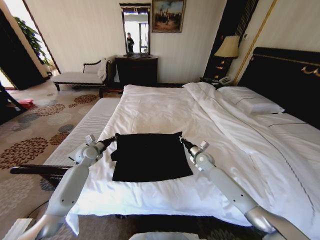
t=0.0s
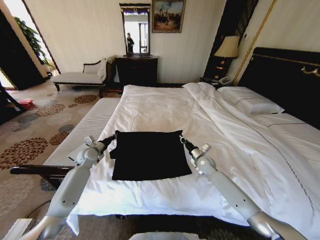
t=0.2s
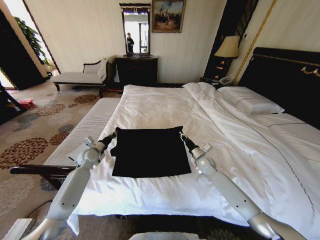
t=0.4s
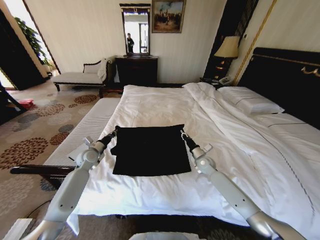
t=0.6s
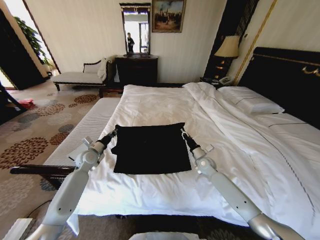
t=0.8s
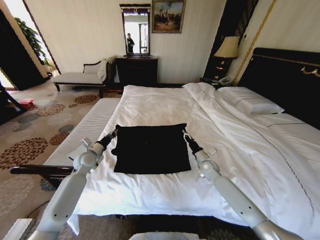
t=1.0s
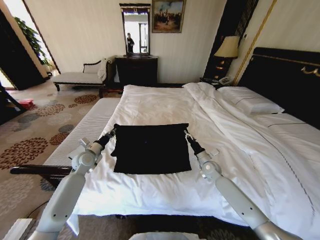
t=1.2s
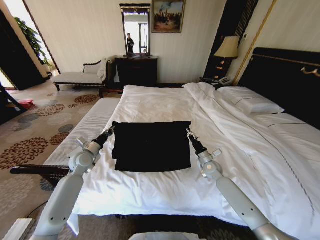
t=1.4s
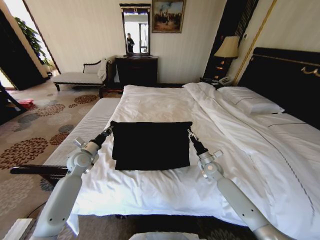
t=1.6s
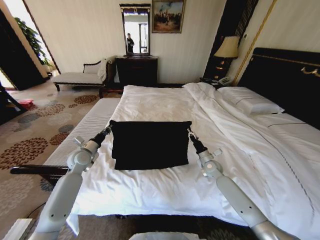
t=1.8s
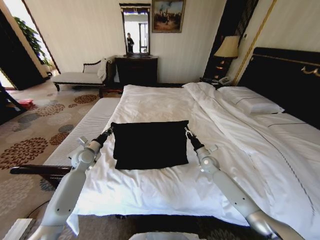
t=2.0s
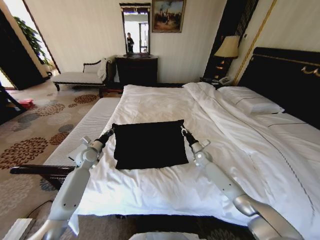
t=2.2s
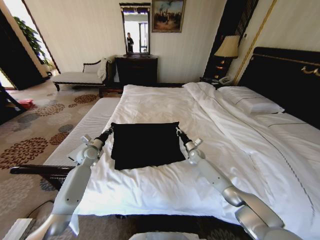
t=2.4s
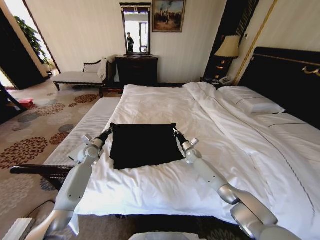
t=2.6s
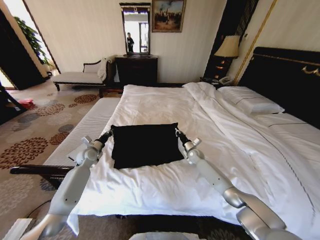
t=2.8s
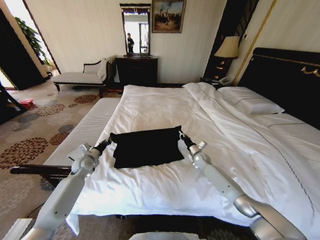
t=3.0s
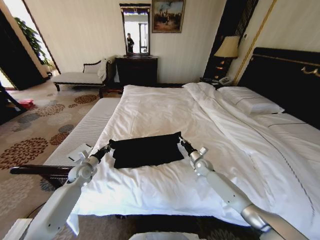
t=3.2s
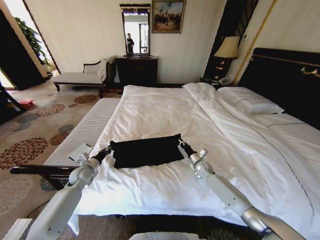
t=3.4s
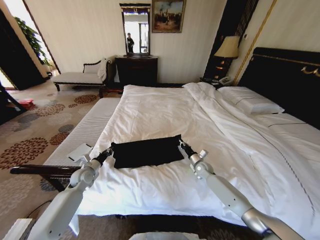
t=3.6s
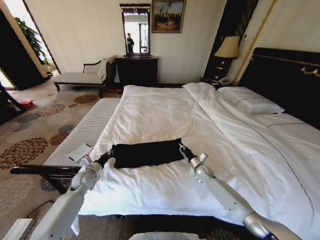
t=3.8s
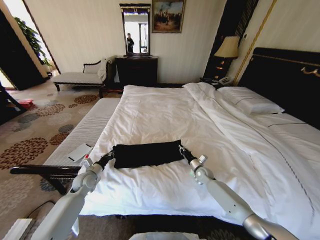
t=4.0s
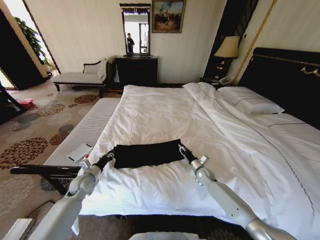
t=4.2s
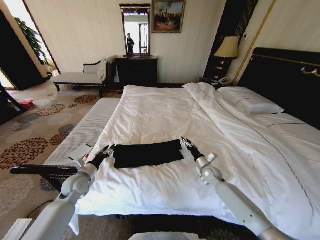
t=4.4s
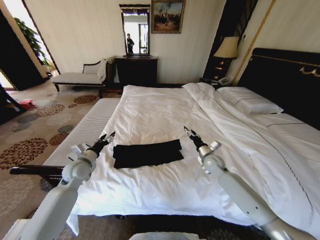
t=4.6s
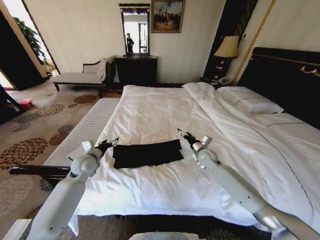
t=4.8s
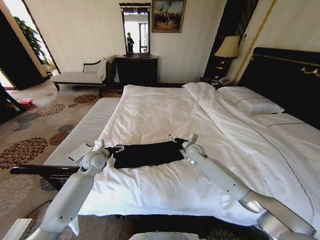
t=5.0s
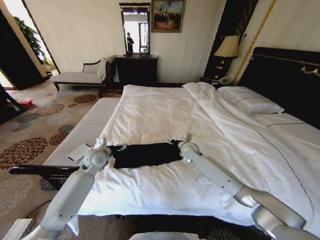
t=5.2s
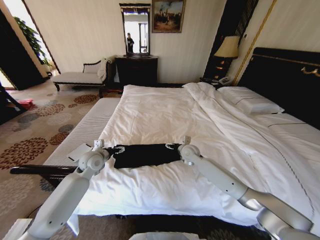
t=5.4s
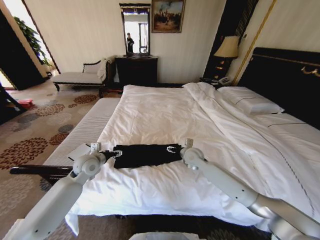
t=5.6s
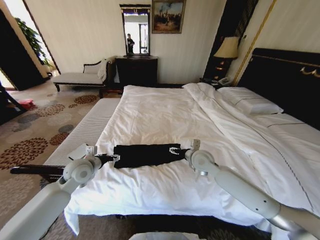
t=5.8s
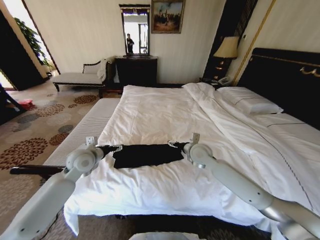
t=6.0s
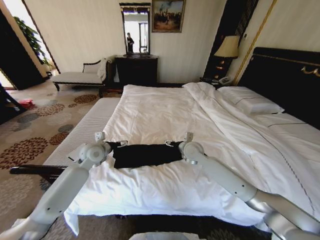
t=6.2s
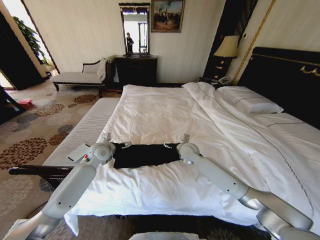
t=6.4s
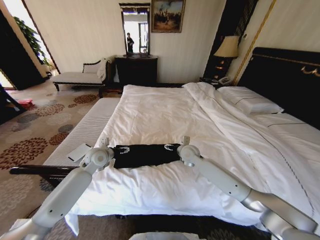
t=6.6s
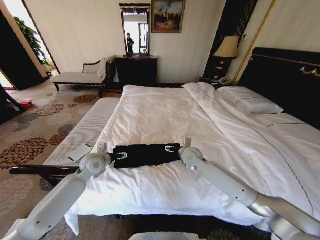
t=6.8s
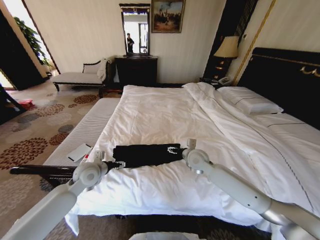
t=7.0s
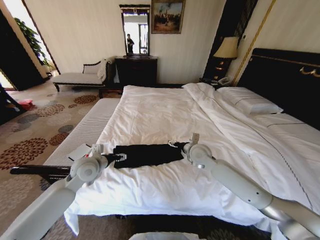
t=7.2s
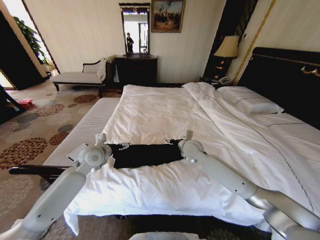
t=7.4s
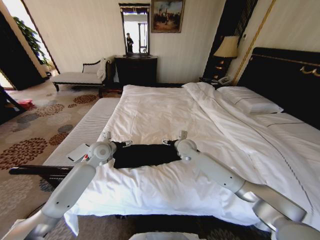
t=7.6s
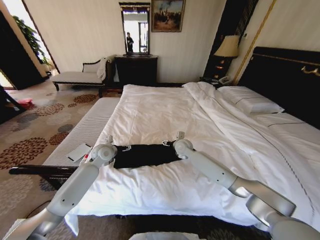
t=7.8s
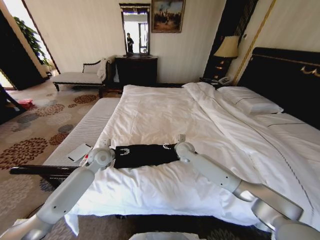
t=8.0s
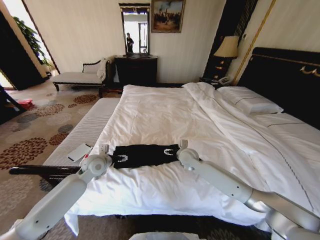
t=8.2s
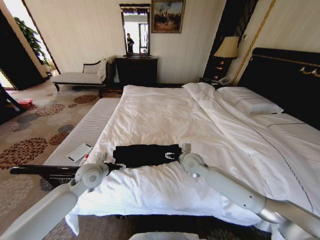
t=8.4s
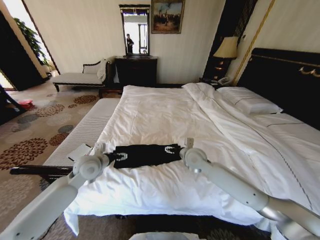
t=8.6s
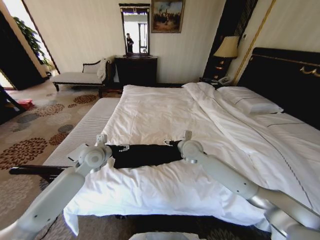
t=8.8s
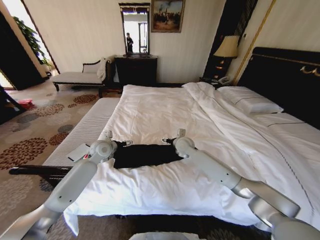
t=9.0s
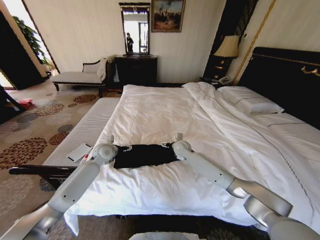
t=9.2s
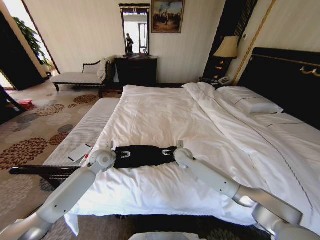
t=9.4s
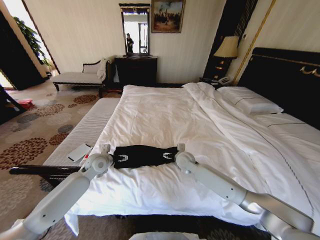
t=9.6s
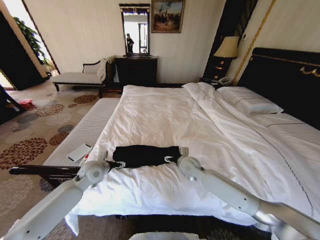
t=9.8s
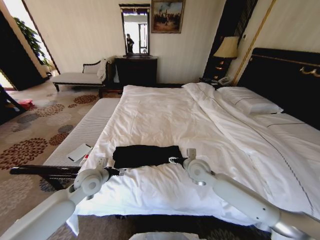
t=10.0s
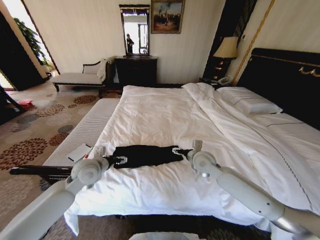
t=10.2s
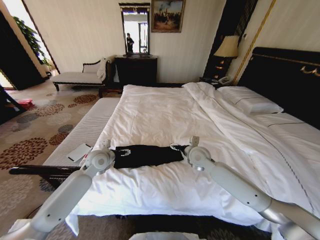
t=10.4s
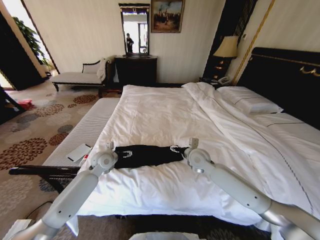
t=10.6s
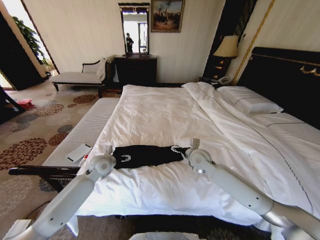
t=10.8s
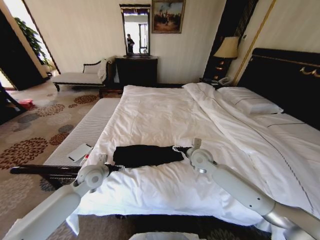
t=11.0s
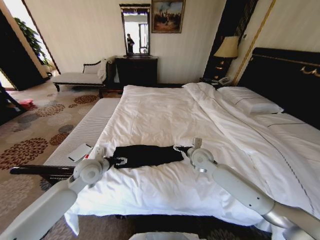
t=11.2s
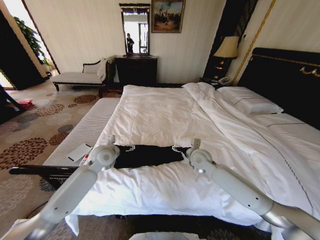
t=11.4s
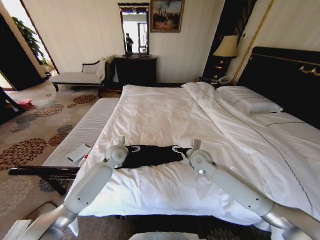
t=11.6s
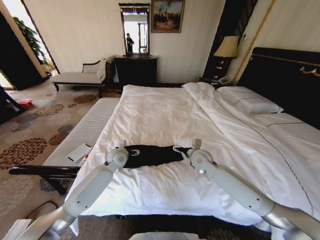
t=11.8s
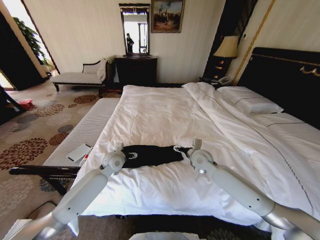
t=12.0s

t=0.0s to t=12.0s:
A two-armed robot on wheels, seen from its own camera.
Task of the whole recording: Fold the clothes on the bed.
t=0.0s to t=1.6s: The left gripper heads backward, covering some 5 cm. The right gripper changes place by some 5 cm.
t=1.6s to t=3.0s: The left gripper travels downward by roughly 5 cm; the right gripper shifts some 10 cm forward.
t=3.0s to t=4.4s: The two grippers go about 10 cm backward. The left gripper opens its fingers, while the right gripper opens its fingers.
t=4.4s to t=6.0s: The right gripper shifts about 20 cm upward and to the left, and opens up. The left gripper shifts approximately 15 cm upward and to the right, and opens up.
t=6.0s to t=7.6s: The left gripper goes forward and backward, approximately 10 cm each way, reversing 2 times; the right gripper swings forward and backward, approximately 10 cm each way, with 2 reversals.
t=7.6s to t=9.0s: The right gripper goes backward and returns, roughly 10 cm each way, while the left gripper travels backward and back again, some 10 cm each way.
t=9.0s to t=10.4s: The right gripper travels backward by about 10 cm. The left gripper reaches roughly 15 cm backward, then returns.
t=10.4s to t=12.0s: The left gripper travels to the right by about 5 cm, and reaches some 5 cm backward, then returns.

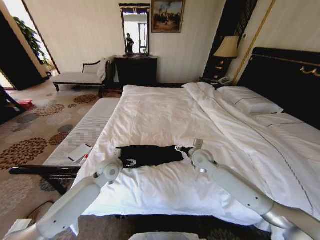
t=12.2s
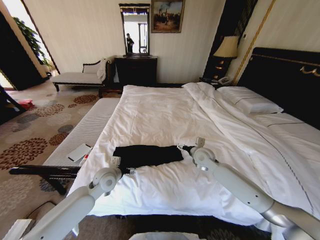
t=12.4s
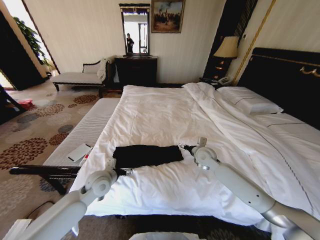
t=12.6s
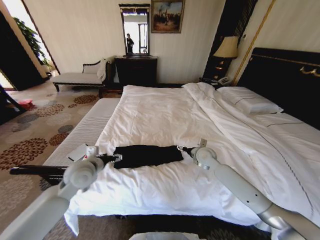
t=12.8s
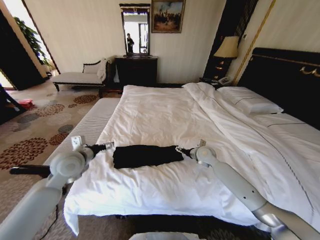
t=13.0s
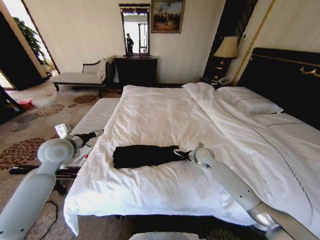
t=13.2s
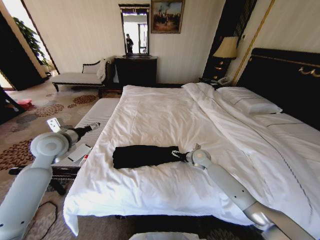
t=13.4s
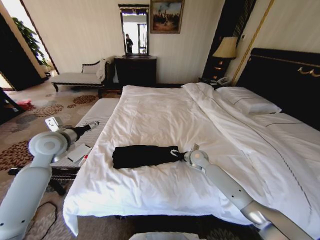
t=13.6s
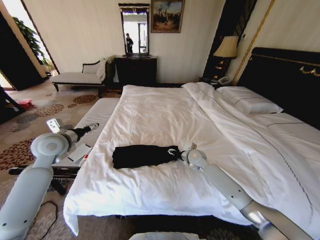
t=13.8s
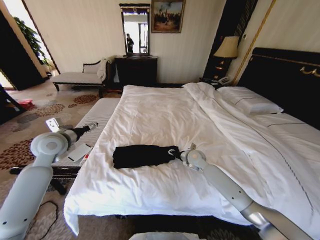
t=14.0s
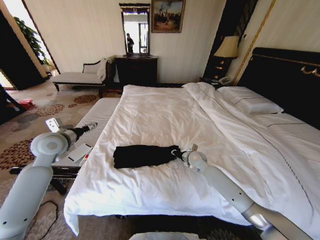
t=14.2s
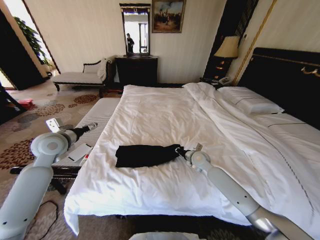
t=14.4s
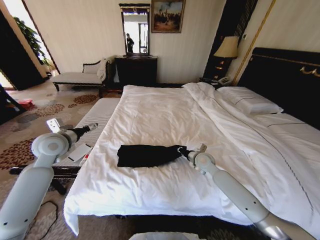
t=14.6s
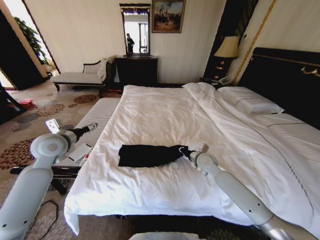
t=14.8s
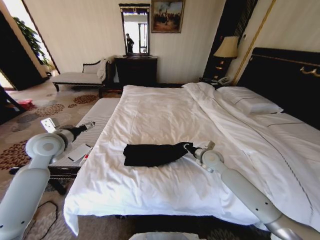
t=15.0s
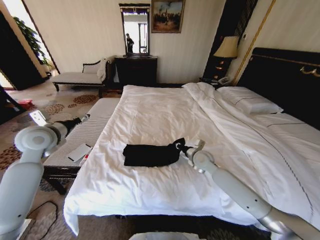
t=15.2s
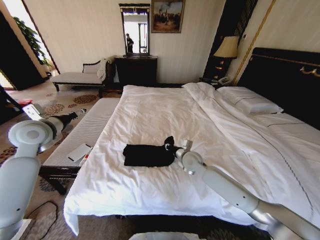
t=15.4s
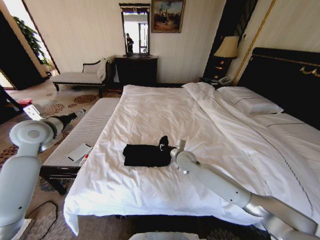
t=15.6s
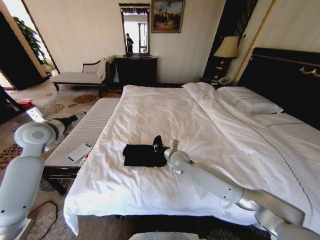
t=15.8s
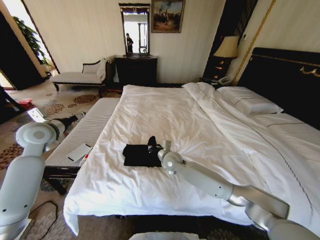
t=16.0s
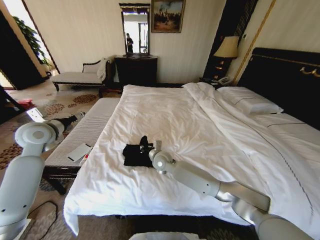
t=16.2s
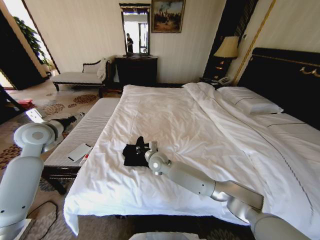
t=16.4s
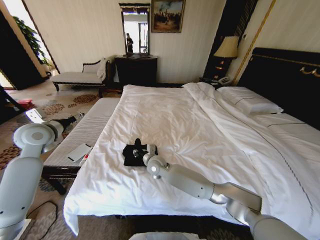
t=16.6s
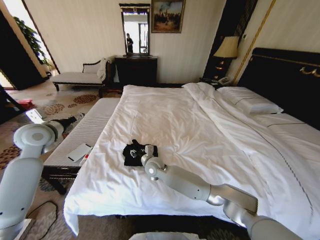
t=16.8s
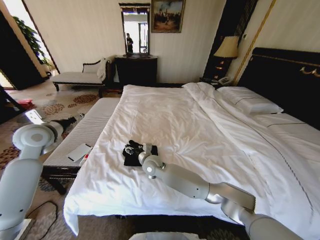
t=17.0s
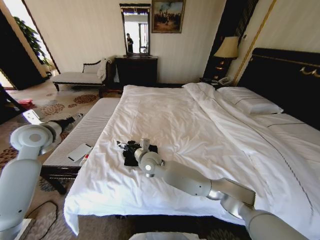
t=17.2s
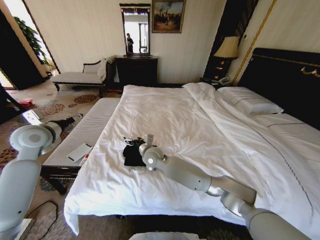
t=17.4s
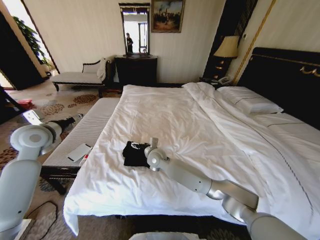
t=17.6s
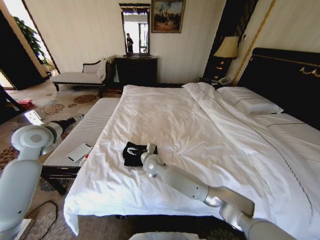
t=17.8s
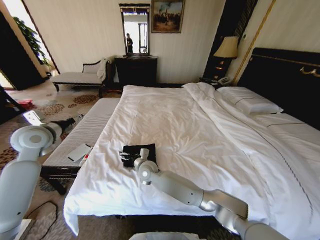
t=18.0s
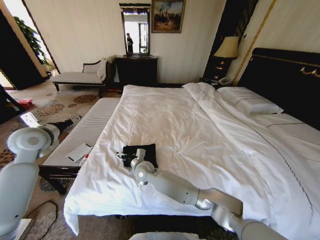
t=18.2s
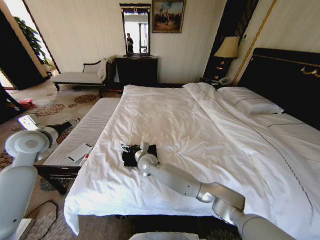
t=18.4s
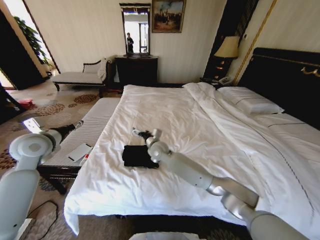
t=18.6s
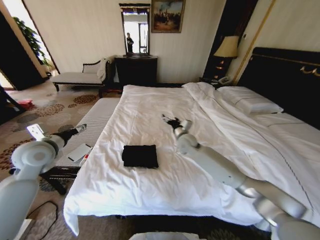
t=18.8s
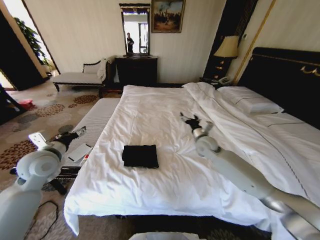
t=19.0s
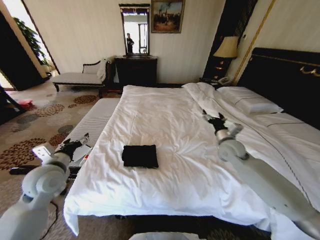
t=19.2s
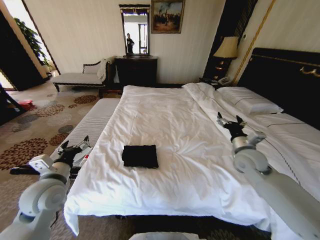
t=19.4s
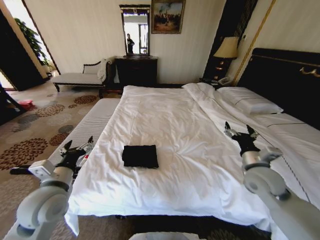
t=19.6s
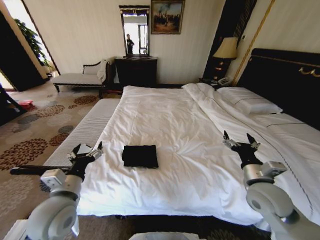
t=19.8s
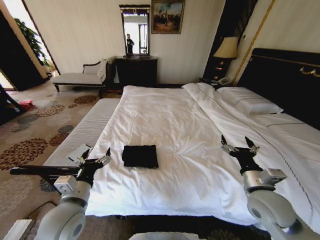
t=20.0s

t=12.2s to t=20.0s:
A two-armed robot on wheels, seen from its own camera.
Task of the whole recording: Fold the clothes on the bed.
t=12.2s to t=13.8s: The right gripper moves downward, roughly 5 cm. Meanwhile the left gripper heads upward and to the left, covering roughly 25 cm.
t=13.8s to t=15.4s: The right gripper ends up roughly 10 cm from where it was, and closes, while the left gripper ends up some 5 cm from where it was.
t=15.4s to t=16.8s: The right gripper heads to the left, covering roughly 20 cm.
t=16.8s to t=18.4s: The right gripper opens its fingers.
t=18.4s to t=20.0s: The right gripper moves to the right and backward, approximately 40 cm, while the left gripper goes approximately 25 cm backward, to the right and downward.

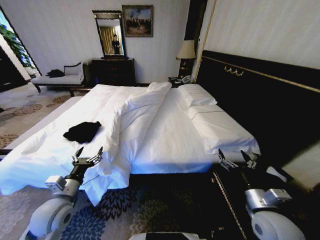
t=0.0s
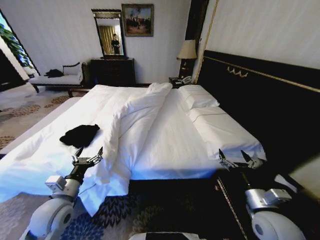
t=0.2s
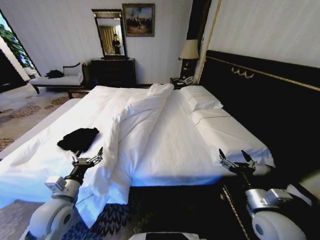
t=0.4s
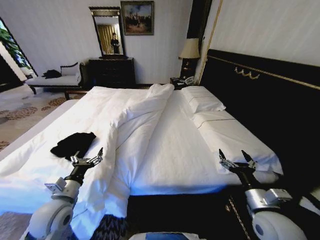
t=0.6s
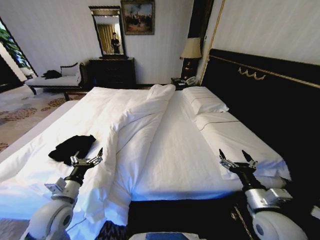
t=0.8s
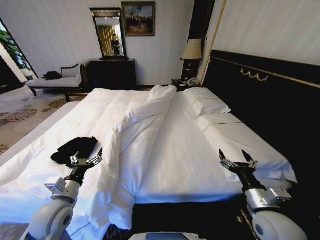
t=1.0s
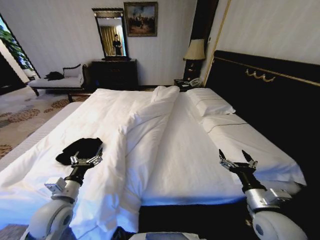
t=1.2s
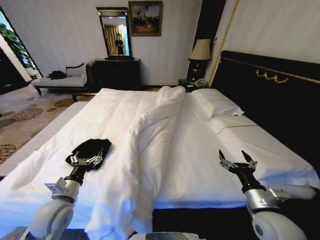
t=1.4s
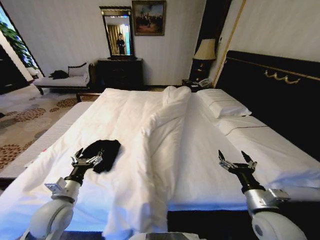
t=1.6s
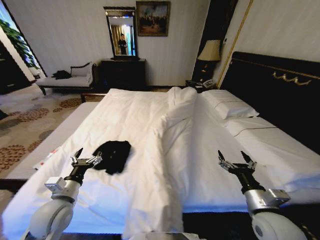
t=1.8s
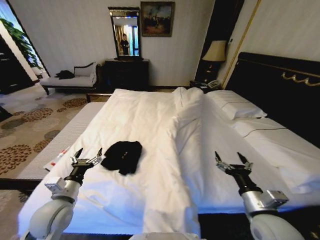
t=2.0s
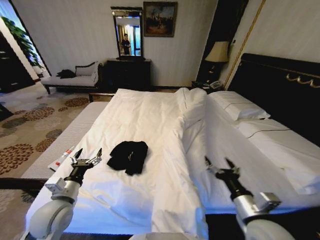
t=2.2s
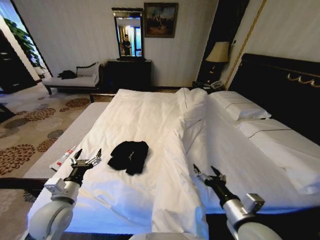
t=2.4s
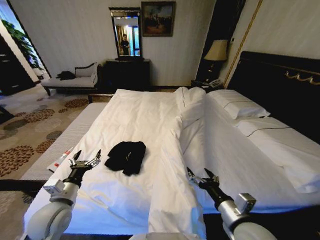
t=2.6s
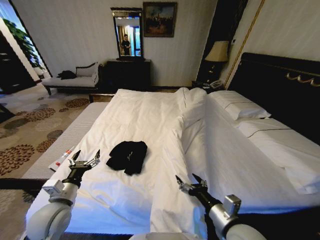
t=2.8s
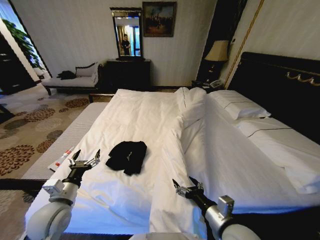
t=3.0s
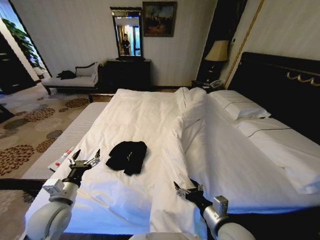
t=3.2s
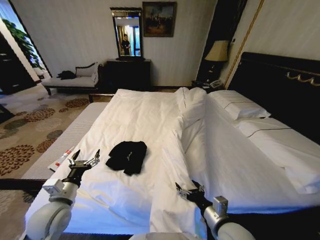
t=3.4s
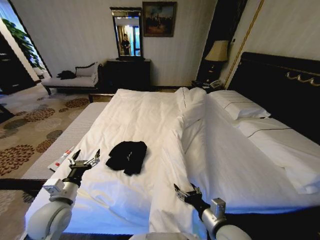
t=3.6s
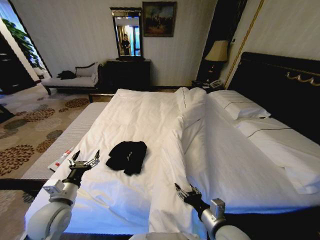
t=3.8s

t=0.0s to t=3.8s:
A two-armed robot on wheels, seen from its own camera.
Task of the whole recording: Fold the clothes on the bed.
t=1.2s to t=2.6s: The right gripper travels to the left by some 10 cm.
t=2.6s to t=3.8s: The right gripper moves downward, some 5 cm.
